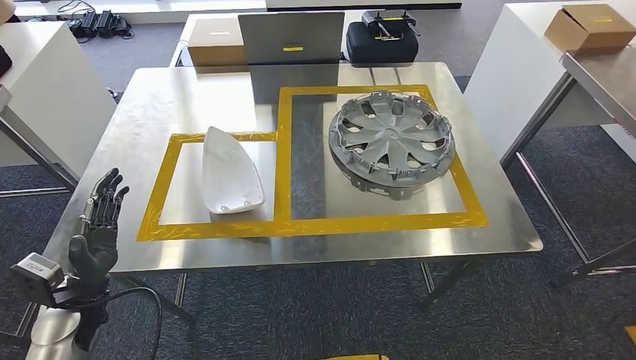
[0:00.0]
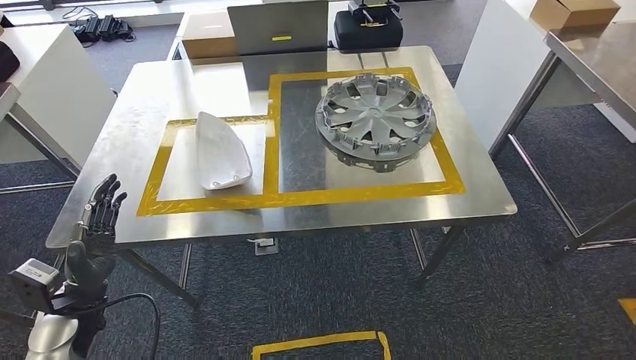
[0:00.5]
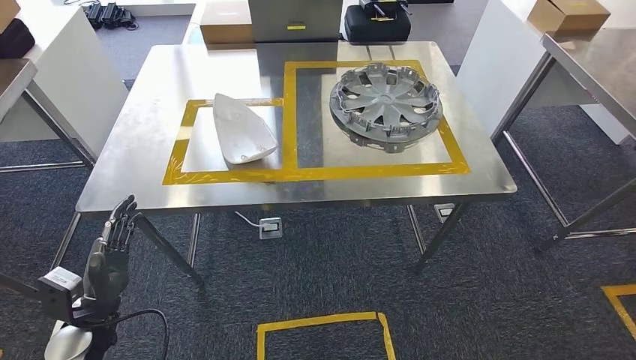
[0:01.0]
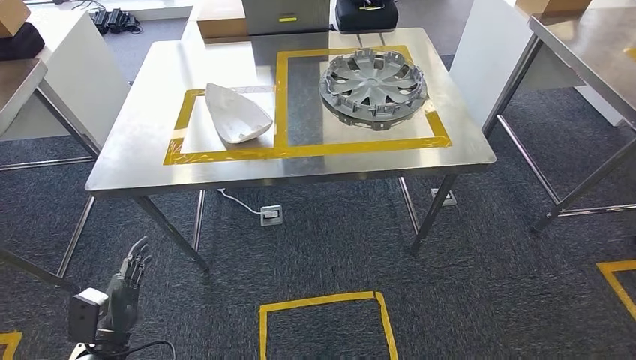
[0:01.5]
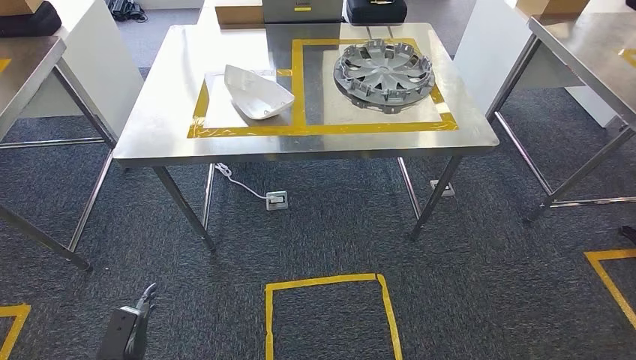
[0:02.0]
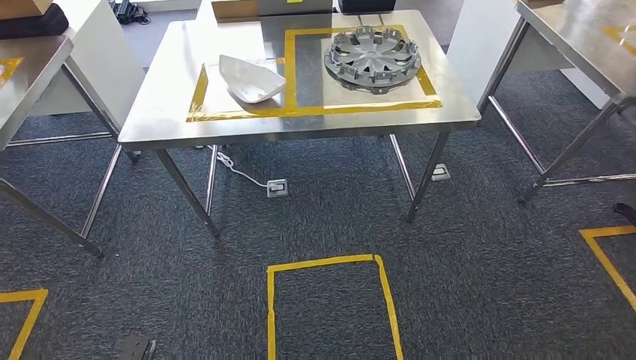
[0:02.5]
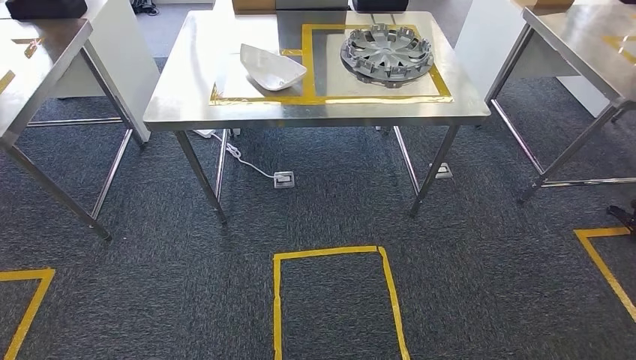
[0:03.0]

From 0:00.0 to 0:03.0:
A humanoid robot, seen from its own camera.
Step, from 0:00.0 to 0:03.0: Return to the initial position at the workbench.
